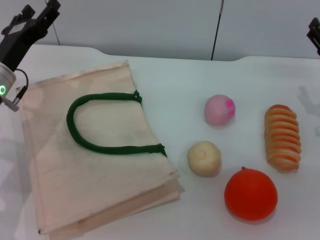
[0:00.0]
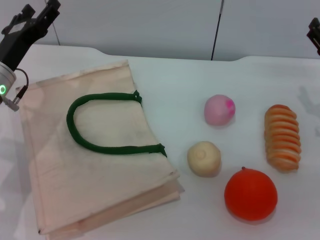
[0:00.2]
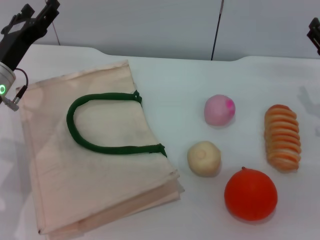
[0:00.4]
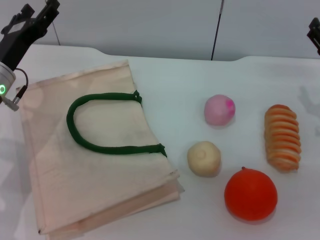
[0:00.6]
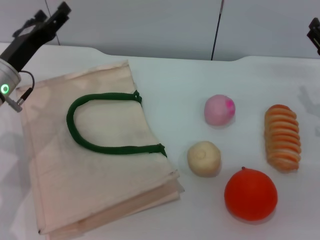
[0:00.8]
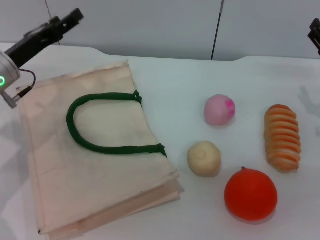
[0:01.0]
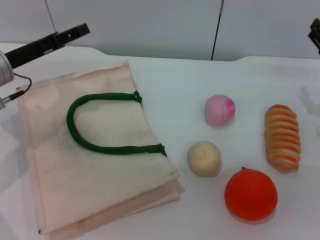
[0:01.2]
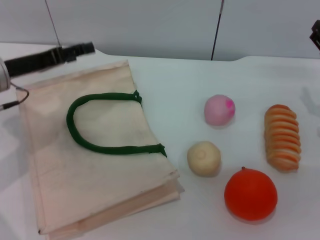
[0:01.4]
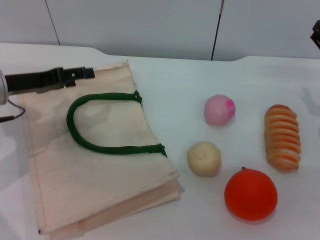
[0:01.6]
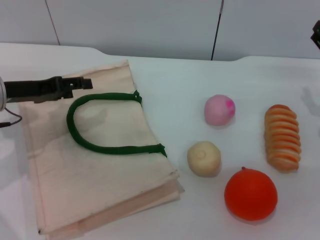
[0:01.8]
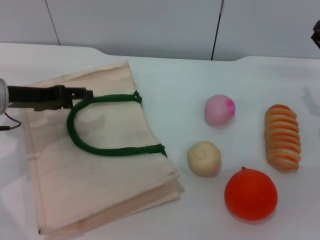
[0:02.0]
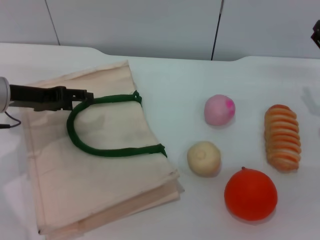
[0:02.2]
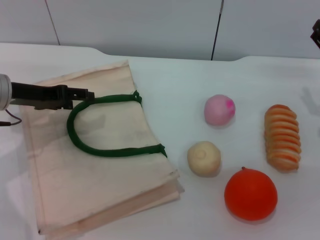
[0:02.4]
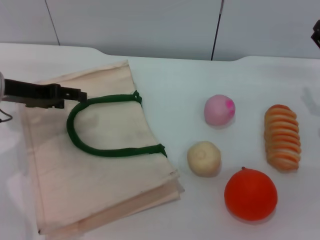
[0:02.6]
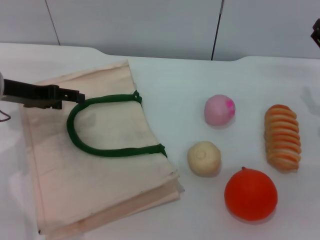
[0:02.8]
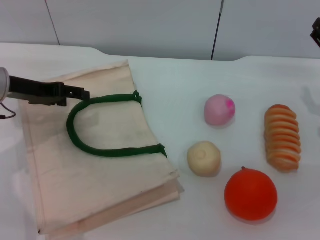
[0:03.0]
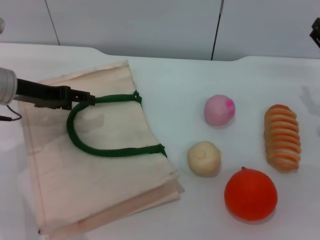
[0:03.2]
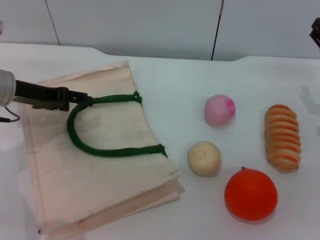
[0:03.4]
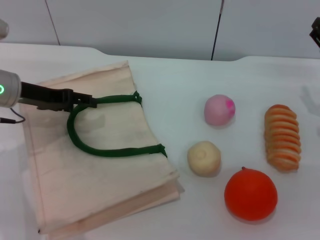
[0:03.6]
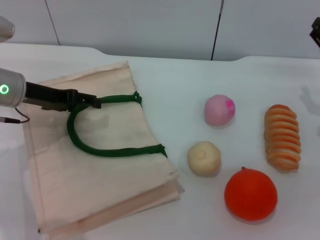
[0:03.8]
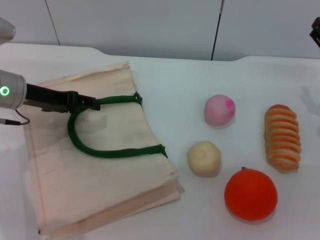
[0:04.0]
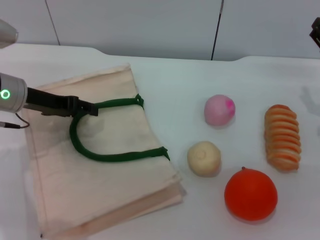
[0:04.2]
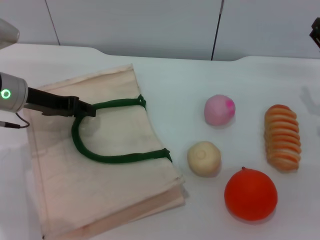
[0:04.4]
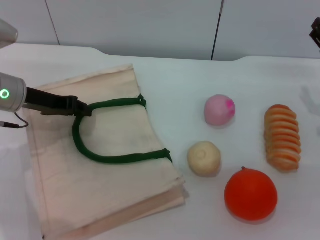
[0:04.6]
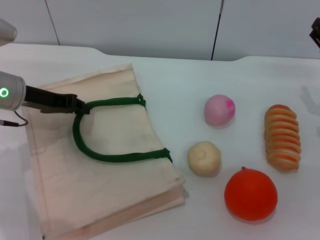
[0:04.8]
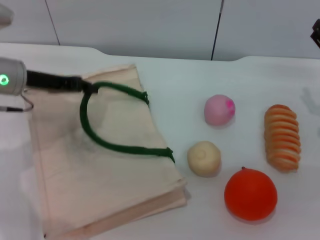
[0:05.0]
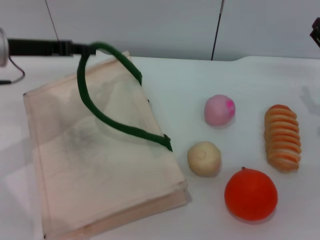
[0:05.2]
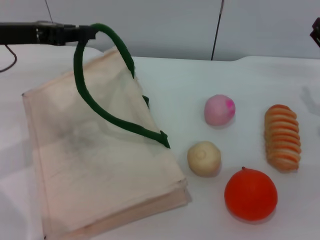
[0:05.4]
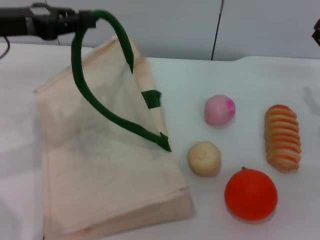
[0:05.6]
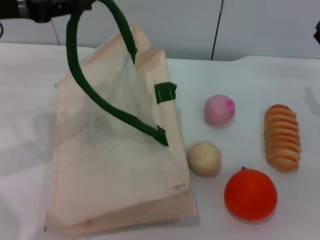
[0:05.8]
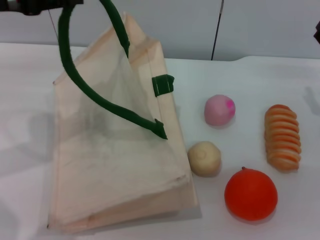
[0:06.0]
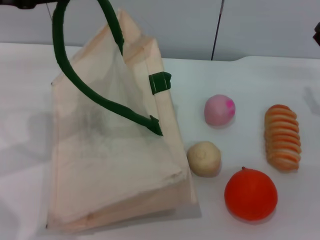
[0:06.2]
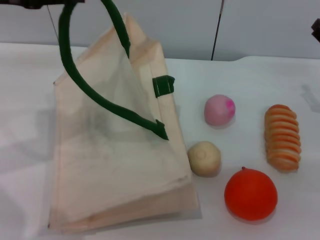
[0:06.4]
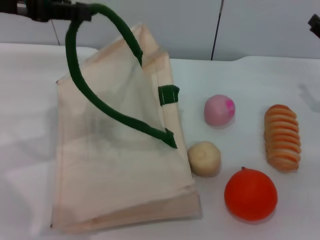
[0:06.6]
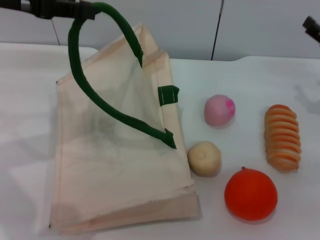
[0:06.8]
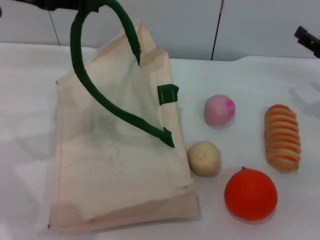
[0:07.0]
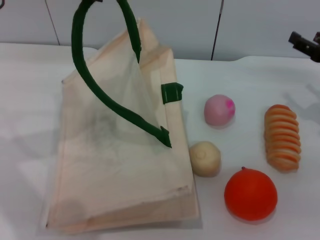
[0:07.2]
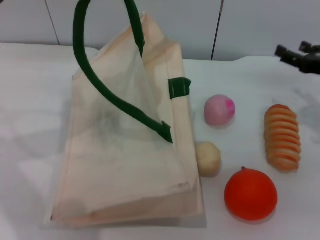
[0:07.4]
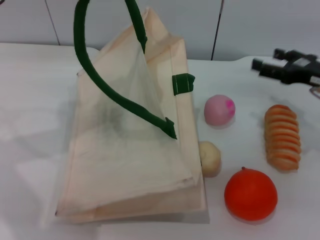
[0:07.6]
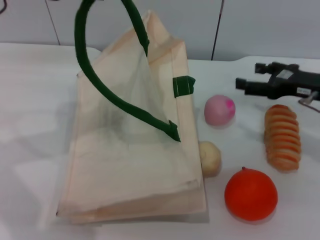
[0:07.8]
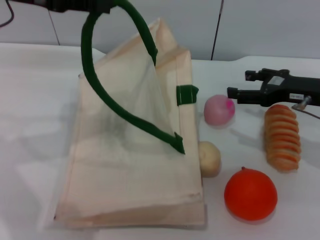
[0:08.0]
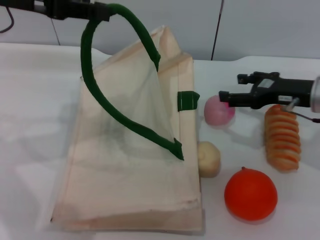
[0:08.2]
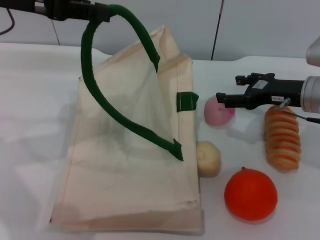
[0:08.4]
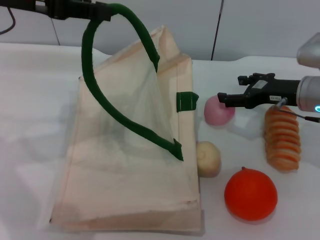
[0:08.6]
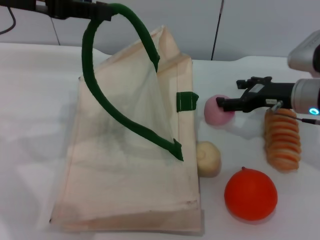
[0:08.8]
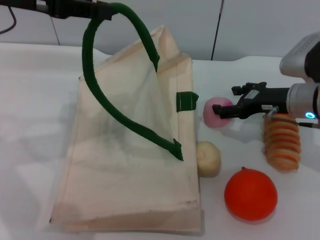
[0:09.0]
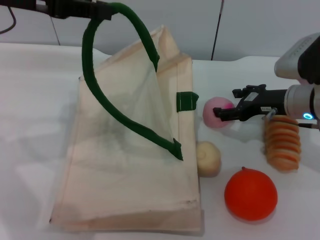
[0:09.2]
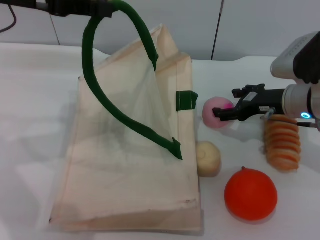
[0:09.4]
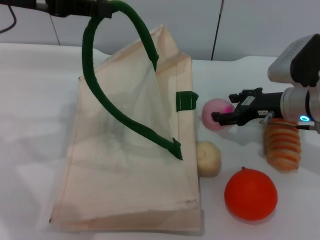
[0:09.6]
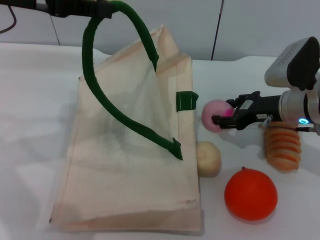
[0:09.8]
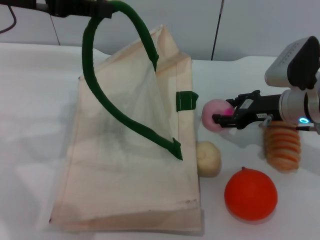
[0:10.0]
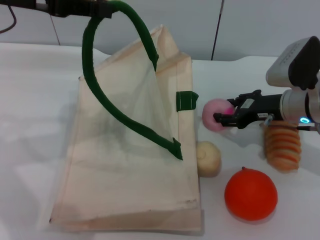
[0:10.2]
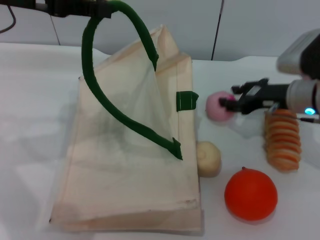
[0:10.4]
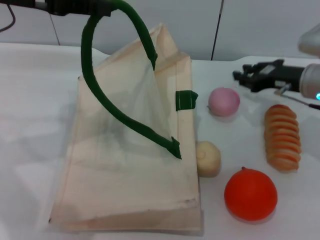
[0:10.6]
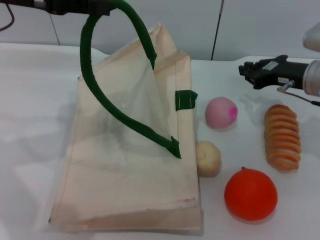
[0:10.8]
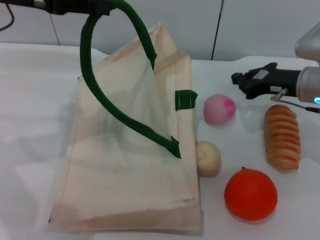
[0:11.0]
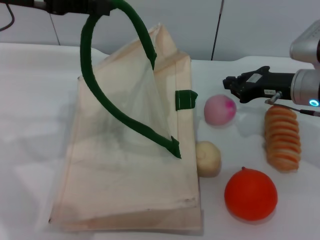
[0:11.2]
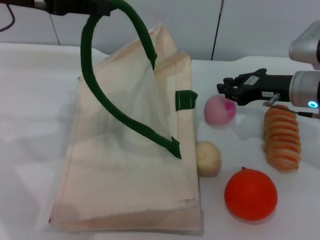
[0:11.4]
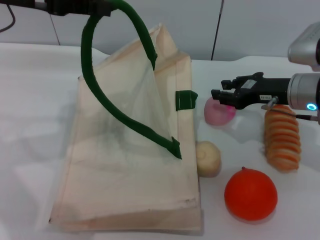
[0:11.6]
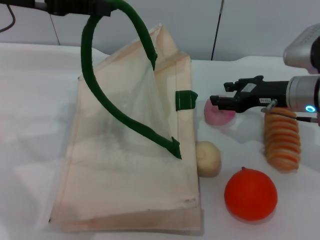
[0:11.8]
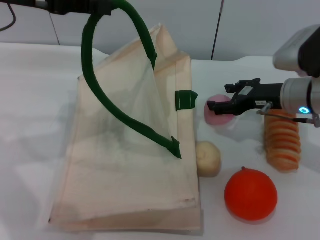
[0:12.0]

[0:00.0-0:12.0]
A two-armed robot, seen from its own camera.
Task of the whole recording: pick up the peach from the table and place it in the white handbag.
Step, 0:00.0 to 0:06.0: Lift the woven bag with the left gripper to open it.
0:01.6 to 0:03.0: The grippers stay close to where they were, moving slightly.
0:03.0 to 0:04.4: The grippers stay close to where they were, moving slightly.
0:04.4 to 0:06.0: The left gripper moves upward, approximately 15 cm, and closes its fingers.
0:06.0 to 0:07.6: The left gripper shifts by about 5 cm.
0:07.6 to 0:09.0: The right gripper goes about 5 cm to the left.
0:09.0 to 0:10.4: The right gripper closes up.
0:10.4 to 0:12.0: The right gripper closes, then reopens.

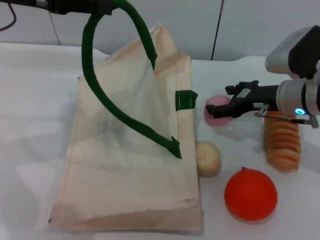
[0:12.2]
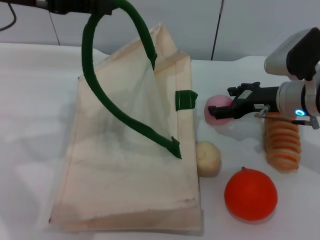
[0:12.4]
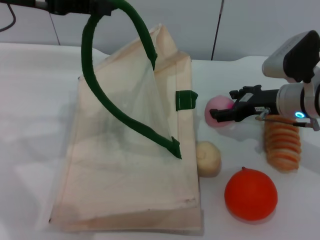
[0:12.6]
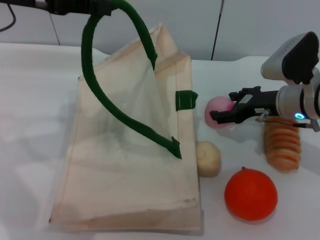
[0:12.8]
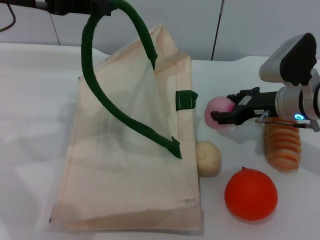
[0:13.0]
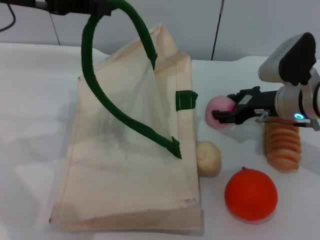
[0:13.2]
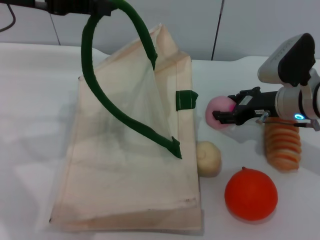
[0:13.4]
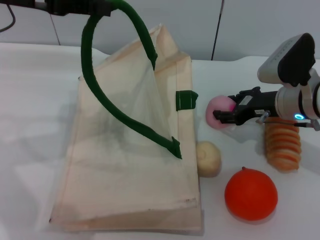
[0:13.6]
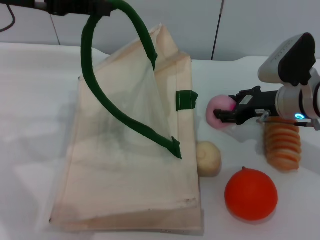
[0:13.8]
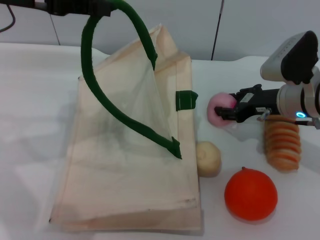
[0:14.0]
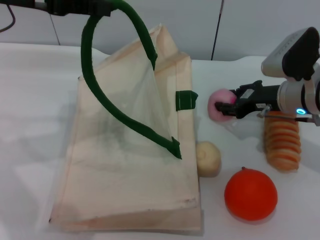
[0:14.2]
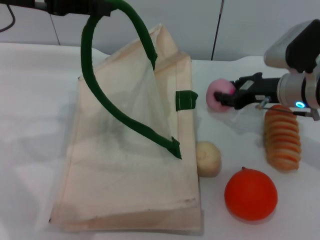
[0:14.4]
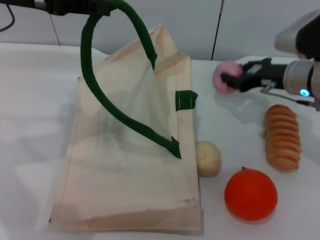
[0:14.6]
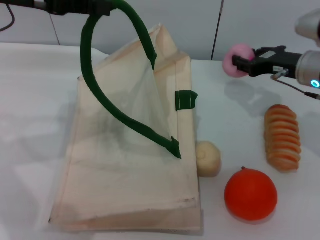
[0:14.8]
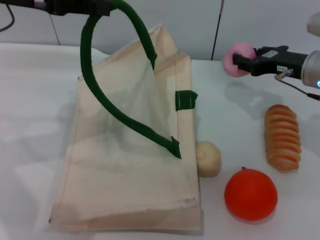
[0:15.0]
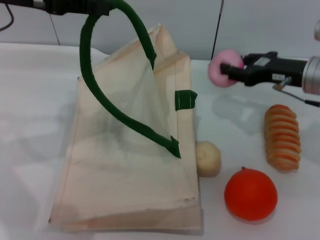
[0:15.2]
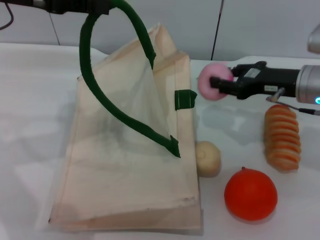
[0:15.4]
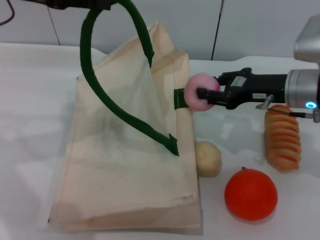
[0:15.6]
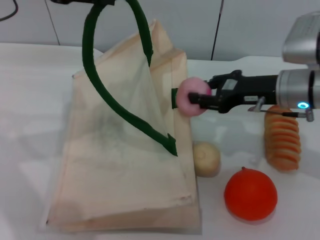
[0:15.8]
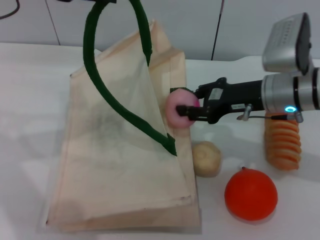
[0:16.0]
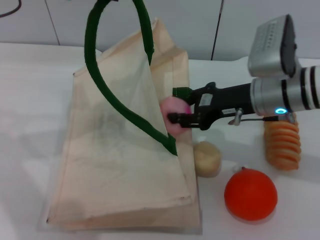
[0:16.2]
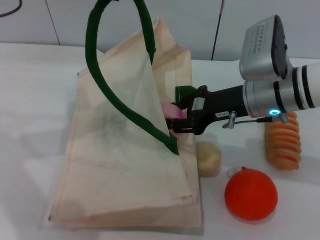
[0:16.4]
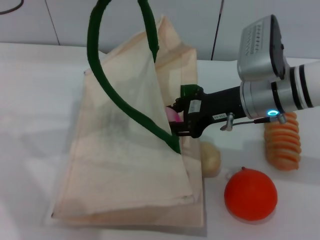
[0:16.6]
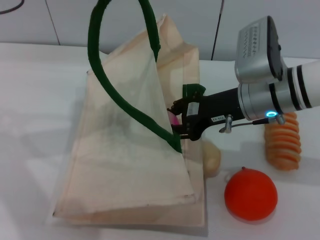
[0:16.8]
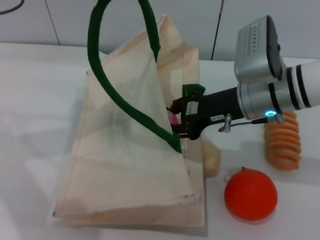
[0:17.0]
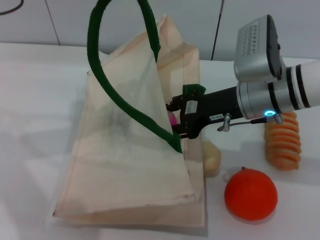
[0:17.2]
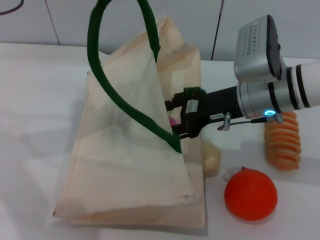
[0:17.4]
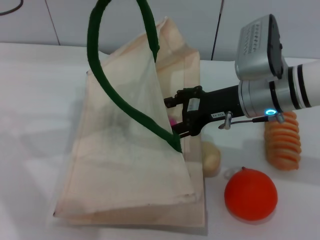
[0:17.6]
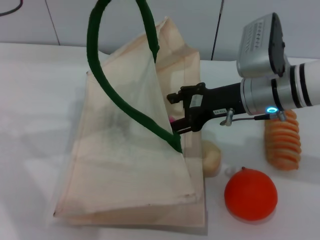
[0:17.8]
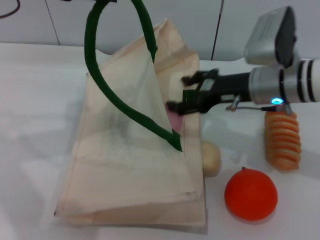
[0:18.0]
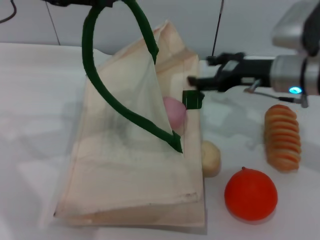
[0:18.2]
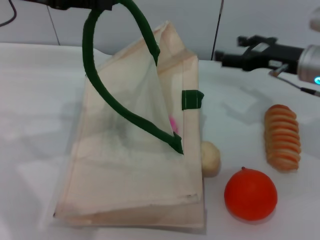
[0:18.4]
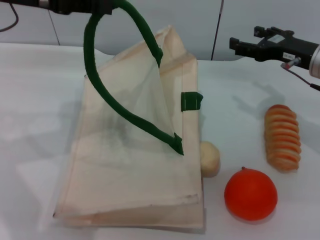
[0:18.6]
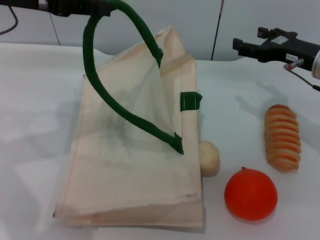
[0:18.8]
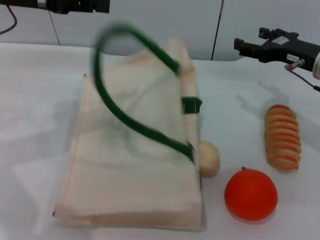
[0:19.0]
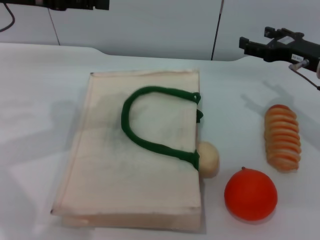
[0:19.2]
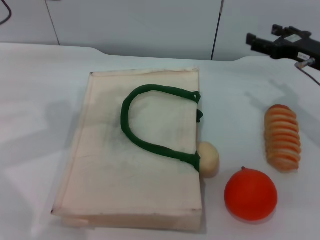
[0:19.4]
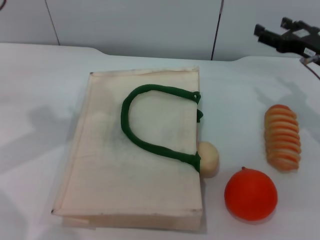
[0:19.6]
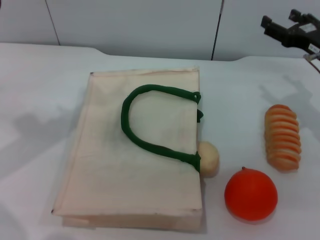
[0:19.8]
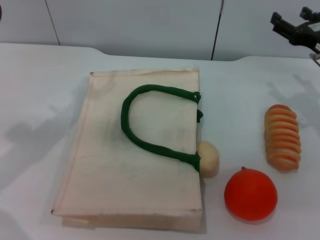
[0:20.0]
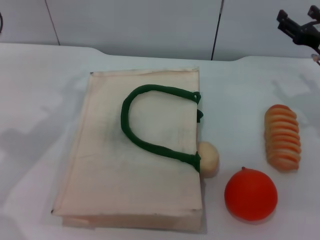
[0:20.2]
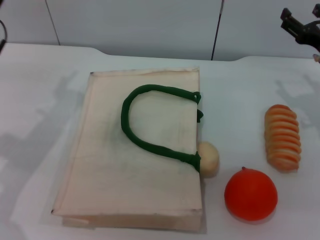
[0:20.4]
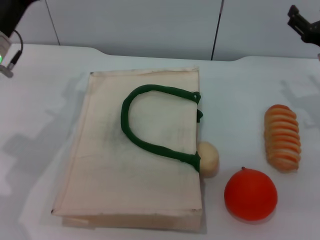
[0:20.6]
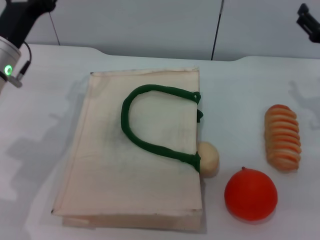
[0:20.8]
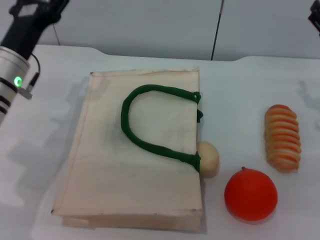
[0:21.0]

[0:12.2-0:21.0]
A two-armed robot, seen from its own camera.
Task of the whole recording: pick up the peach from the table and place it in the white handbag.
Step, 0:12.2 to 0:14.6: Pick up the peach with the right gripper.
Step, 0:14.8 to 0:18.2: Place the peach into the woven bag with the right gripper.
Step, 0:18.4 to 0:19.4: Lower the woven bag with the left gripper to close it.
0:12.2 to 0:13.6: The grippers stay close to where they were, moving slightly.
0:15.2 to 0:16.6: The right gripper is displaced to the left by roughly 10 cm.
0:16.6 to 0:18.0: The right gripper opens its fingers.
0:18.0 to 0:19.6: The right gripper goes some 10 cm to the right. Meanwhile the left gripper opens up.
0:19.6 to 0:21.0: The left gripper moves downward, approximately 15 cm.

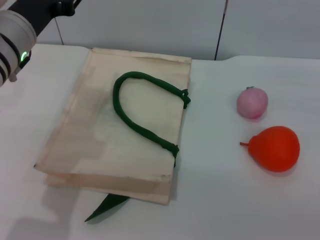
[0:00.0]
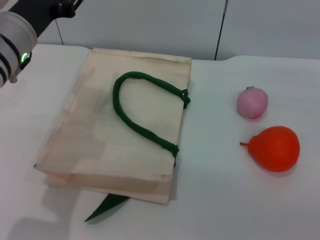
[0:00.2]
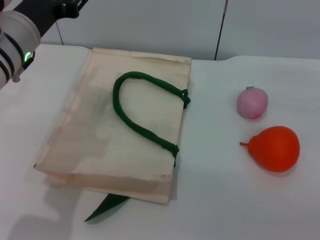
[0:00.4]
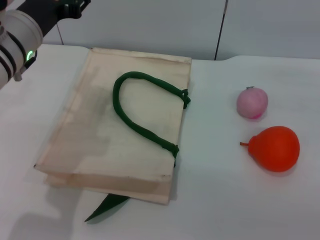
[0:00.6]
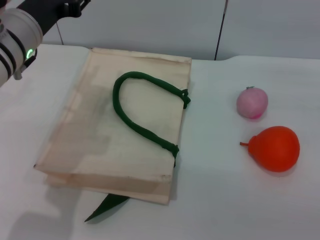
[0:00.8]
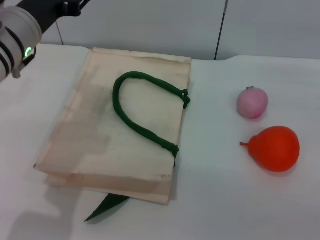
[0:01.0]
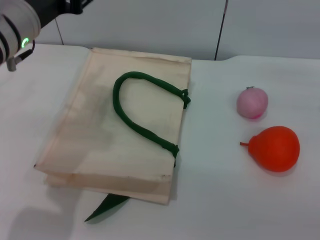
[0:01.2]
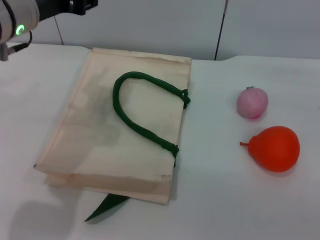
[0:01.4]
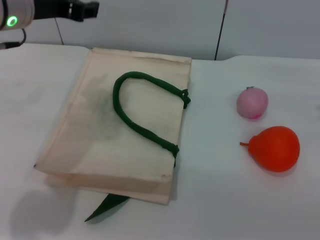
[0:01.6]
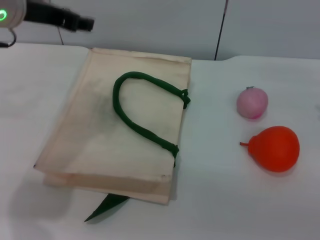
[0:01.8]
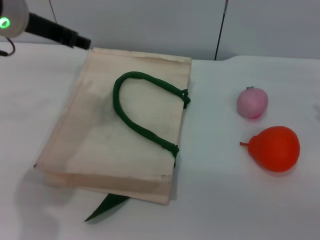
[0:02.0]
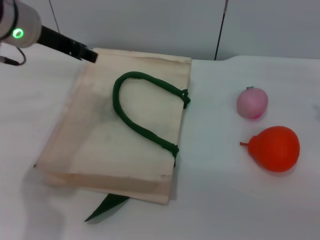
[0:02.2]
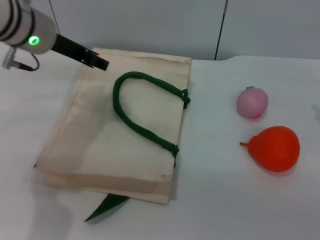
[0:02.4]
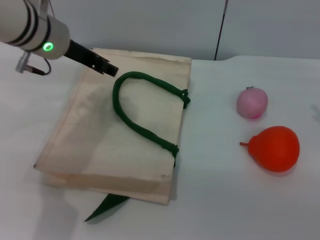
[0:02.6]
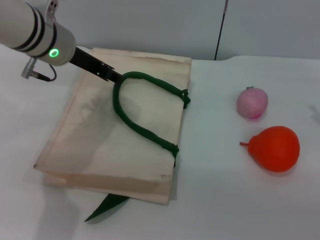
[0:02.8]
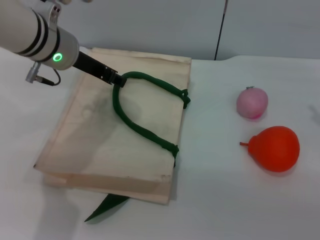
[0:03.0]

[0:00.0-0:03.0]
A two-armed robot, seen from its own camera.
Task of the whole recording: pick up the orange and peach from the table and place it in the white handbag.
0:00.0 to 0:01.6: The left gripper moves upward, approximately 5 cm.
0:01.6 to 0:03.0: The left gripper moves downward, some 5 cm.
